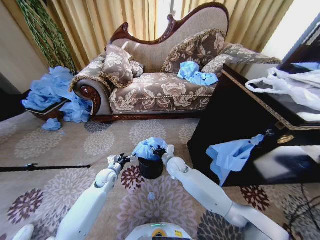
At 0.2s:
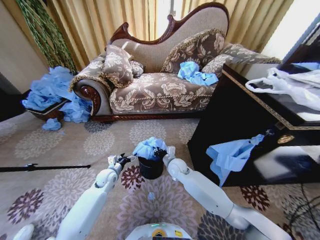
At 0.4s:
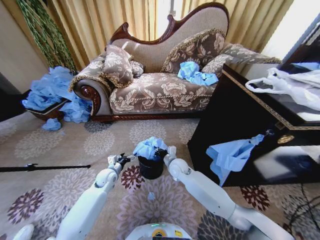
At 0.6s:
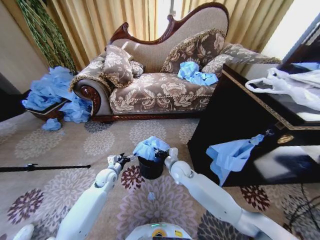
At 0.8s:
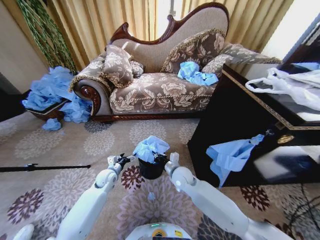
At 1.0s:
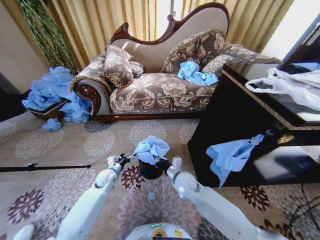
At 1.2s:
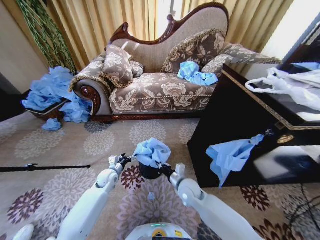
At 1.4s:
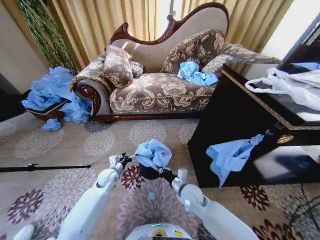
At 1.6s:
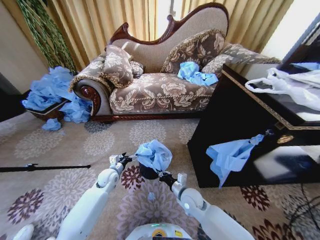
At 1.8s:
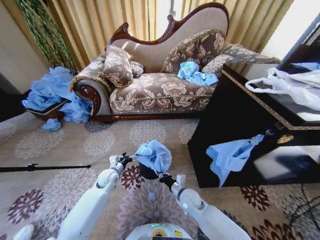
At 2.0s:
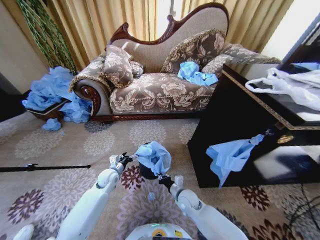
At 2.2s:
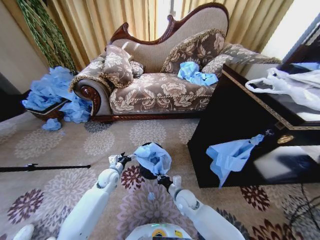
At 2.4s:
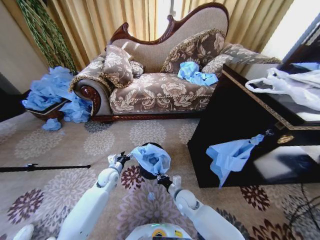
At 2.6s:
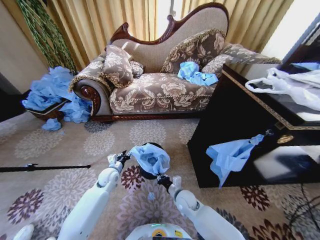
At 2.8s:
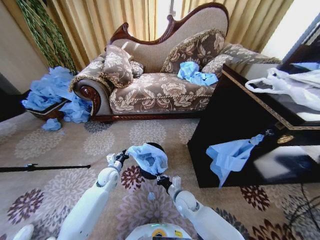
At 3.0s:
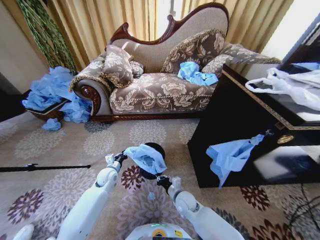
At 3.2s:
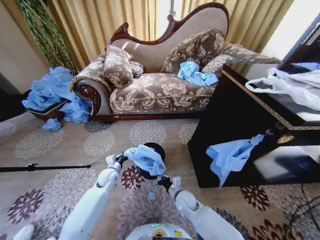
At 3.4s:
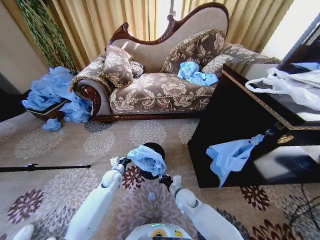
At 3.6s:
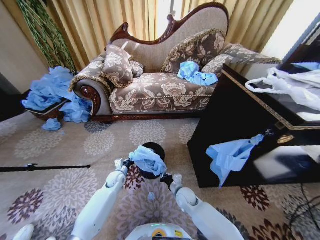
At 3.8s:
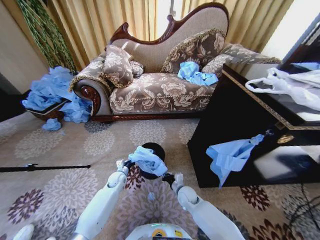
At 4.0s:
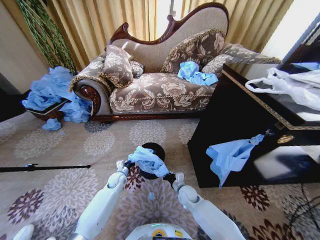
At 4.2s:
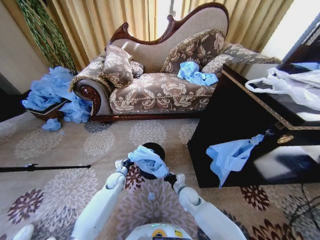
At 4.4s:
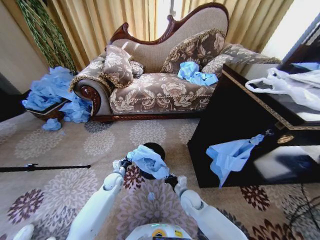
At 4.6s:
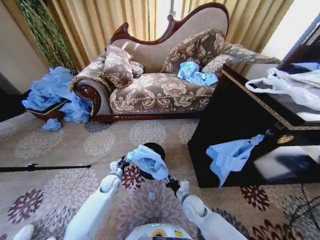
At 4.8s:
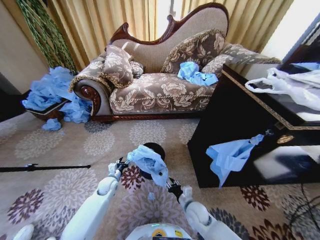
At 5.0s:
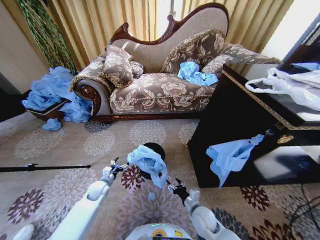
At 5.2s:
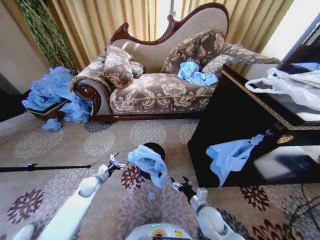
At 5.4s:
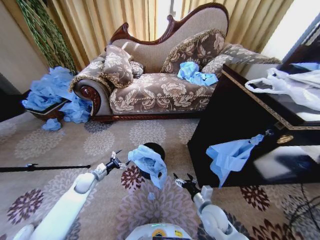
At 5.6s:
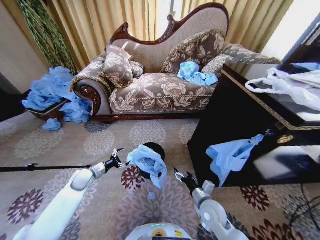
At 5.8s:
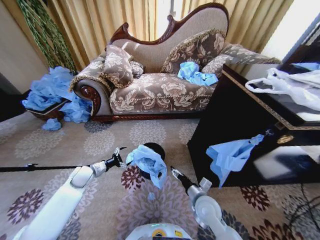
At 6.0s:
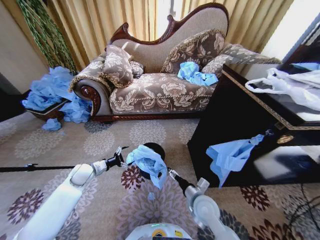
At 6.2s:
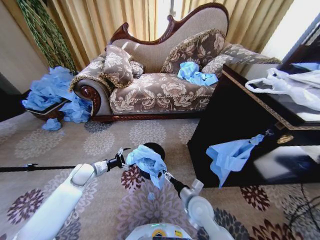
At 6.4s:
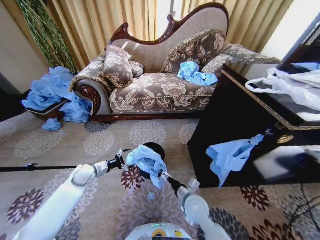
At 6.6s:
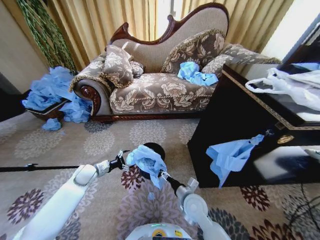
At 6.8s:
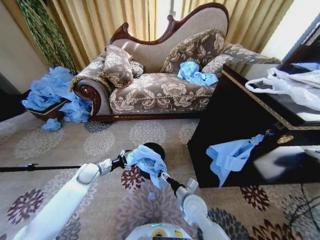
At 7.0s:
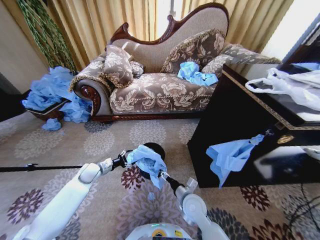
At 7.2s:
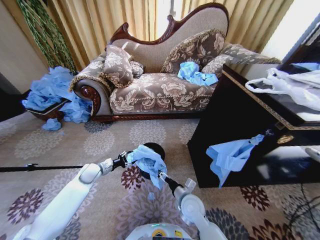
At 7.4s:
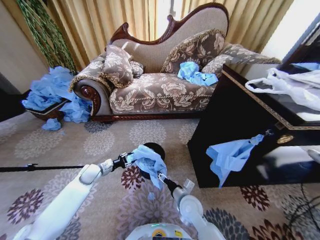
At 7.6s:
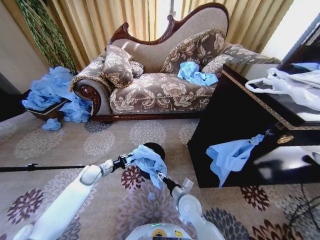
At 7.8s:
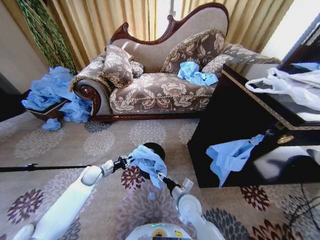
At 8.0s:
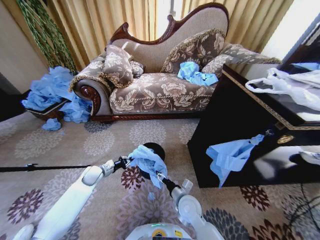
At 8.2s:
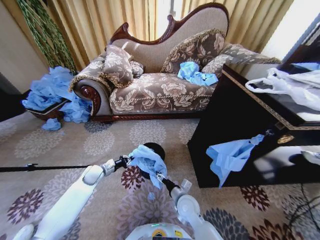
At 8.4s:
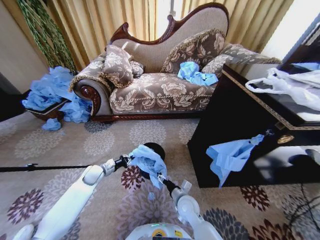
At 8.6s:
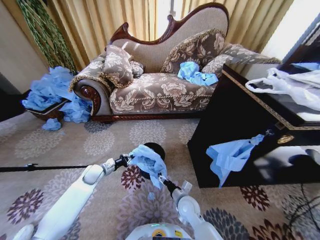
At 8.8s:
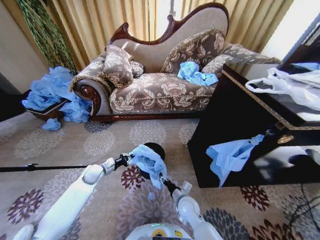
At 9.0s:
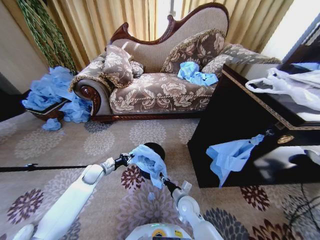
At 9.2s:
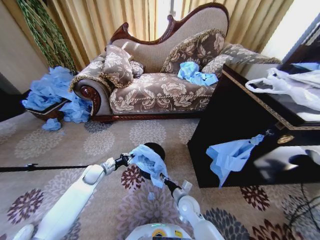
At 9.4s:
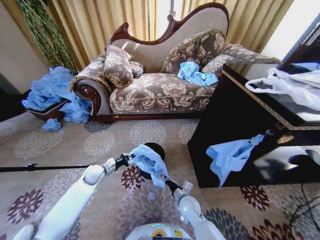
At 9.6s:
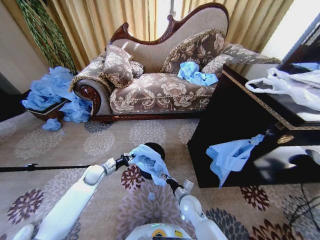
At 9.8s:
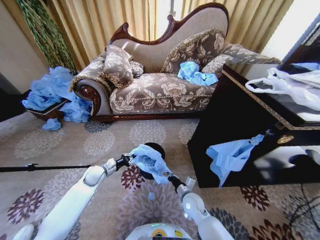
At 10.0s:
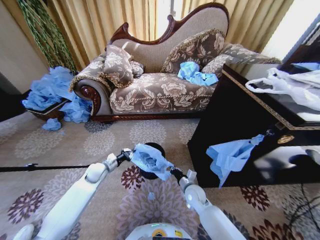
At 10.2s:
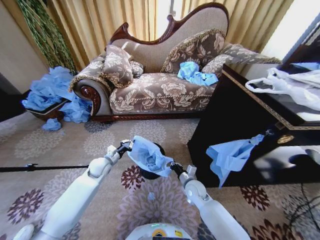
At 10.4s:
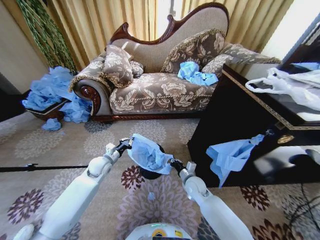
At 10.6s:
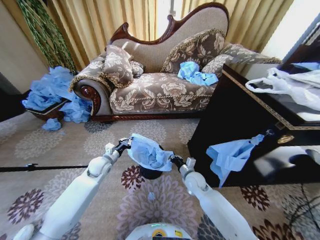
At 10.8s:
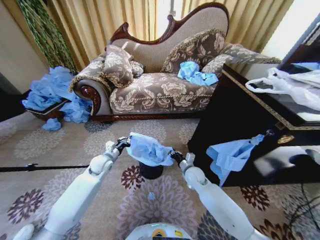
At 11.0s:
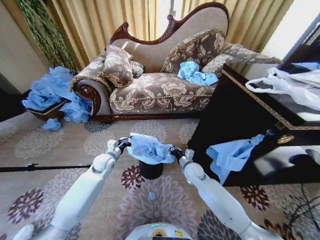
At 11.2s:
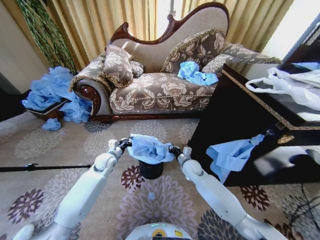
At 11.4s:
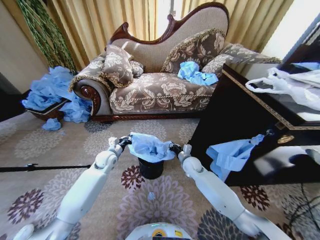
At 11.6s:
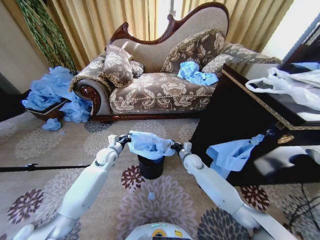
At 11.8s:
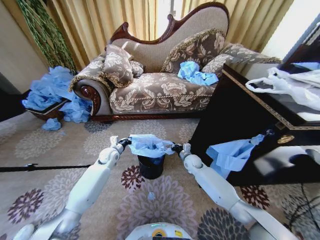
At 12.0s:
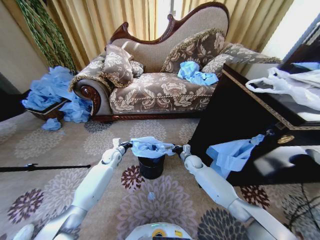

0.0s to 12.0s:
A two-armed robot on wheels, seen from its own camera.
Task of the whole recording: Place a garbage bag over the trash bin.
0.0s to 1.6s: The right gripper heads backward, to the right and downward, covering some 15 cm, and closes up.
1.6s to 3.0s: The left gripper closes.
3.0s to 4.4s: The left gripper is displaced downward by some 5 cm.
4.4s to 6.0s: The right gripper shifts approximately 10 cm upward and backward, and opens its fingers. Meanwhile the left gripper moves to the left and upward, roughly 15 cm, and opens its fingers.
6.0s to 7.6s: The right gripper travels to the left by about 5 cm, while the left gripper closes its fingers.
7.6s to 9.0s: The left gripper closes up. The right gripper heads downward, covering some 5 cm, and closes up.
9.0s to 10.4s: The left gripper is displaced upward and to the right by some 10 cm. The right gripper is displaced forward by approximately 5 cm, and closes.
10.4s to 12.0s: The right gripper is displaced forward by about 15 cm, while the left gripper heads forward, covering approximately 10 cm.

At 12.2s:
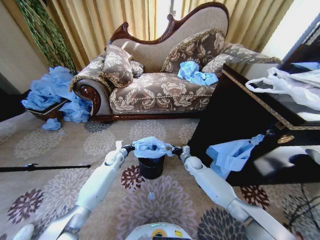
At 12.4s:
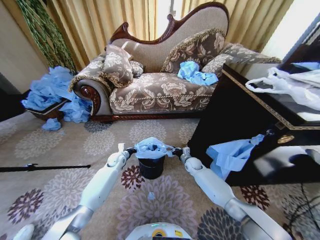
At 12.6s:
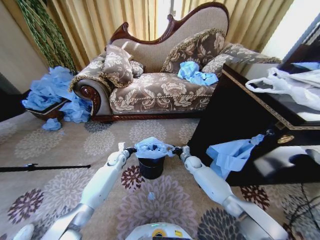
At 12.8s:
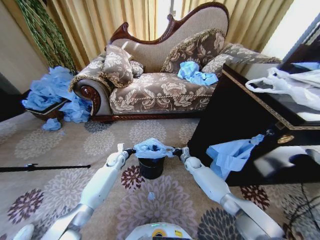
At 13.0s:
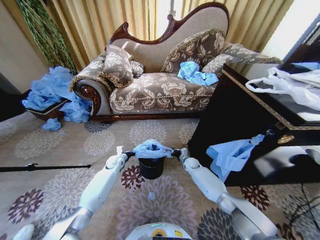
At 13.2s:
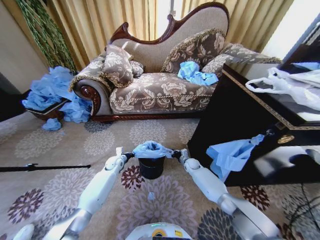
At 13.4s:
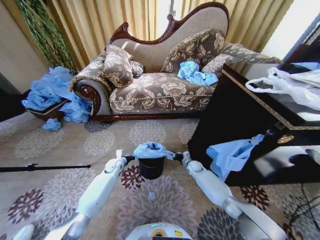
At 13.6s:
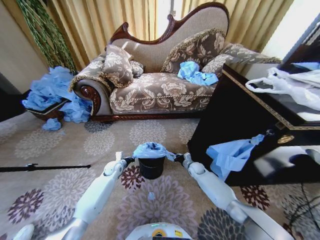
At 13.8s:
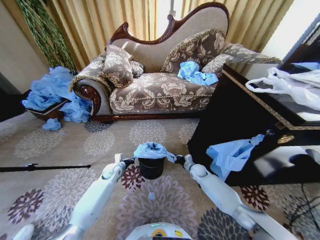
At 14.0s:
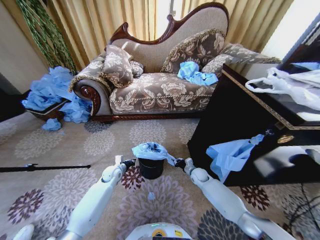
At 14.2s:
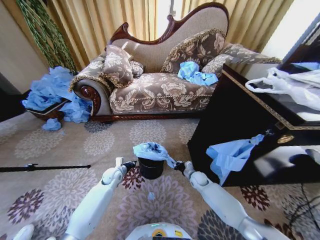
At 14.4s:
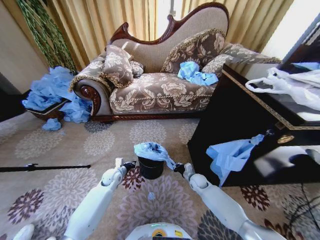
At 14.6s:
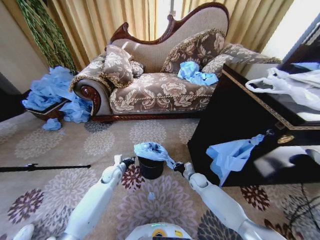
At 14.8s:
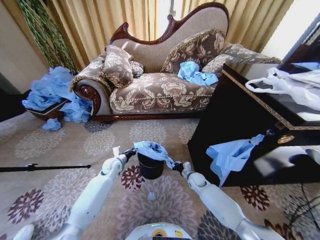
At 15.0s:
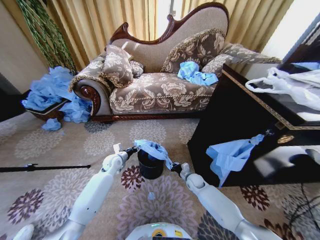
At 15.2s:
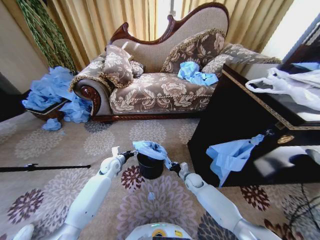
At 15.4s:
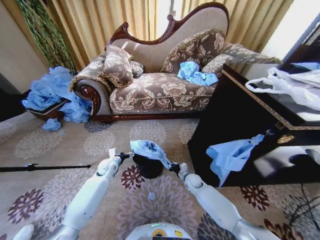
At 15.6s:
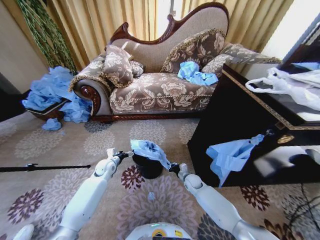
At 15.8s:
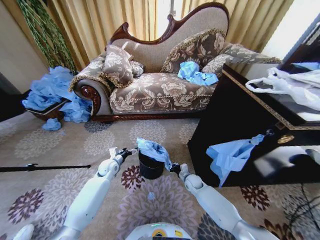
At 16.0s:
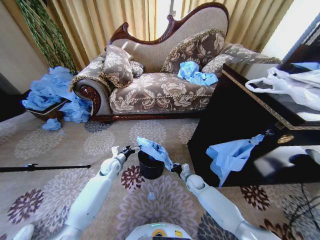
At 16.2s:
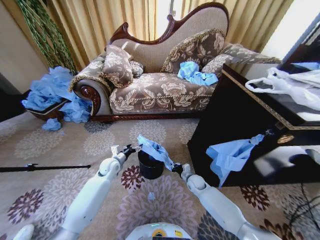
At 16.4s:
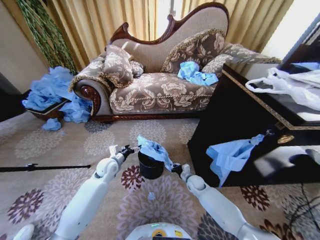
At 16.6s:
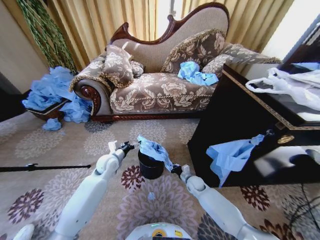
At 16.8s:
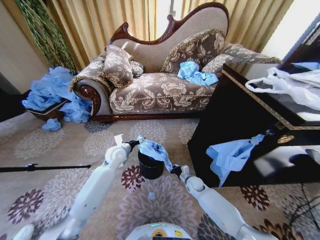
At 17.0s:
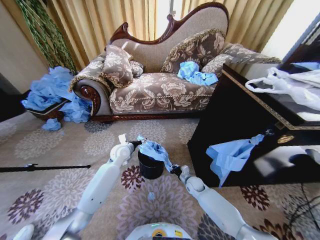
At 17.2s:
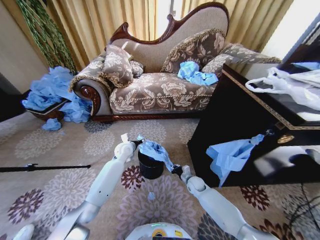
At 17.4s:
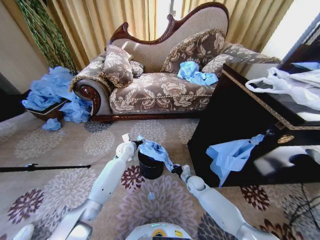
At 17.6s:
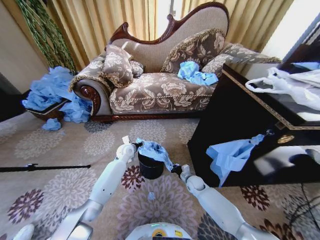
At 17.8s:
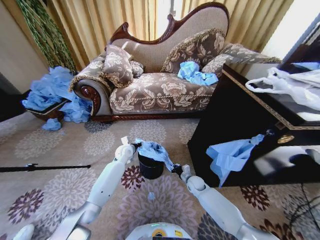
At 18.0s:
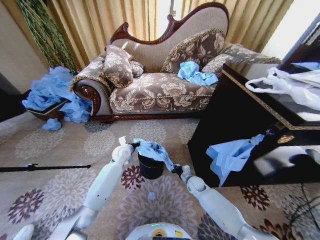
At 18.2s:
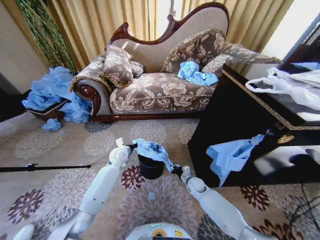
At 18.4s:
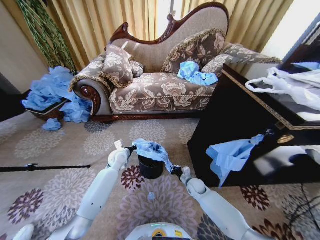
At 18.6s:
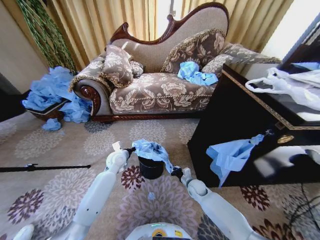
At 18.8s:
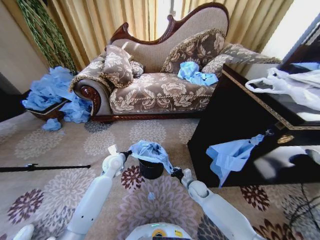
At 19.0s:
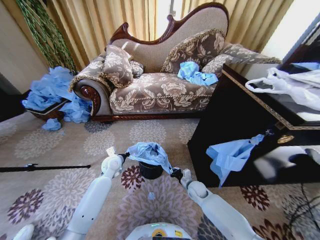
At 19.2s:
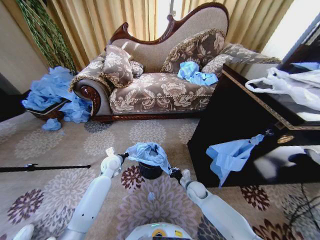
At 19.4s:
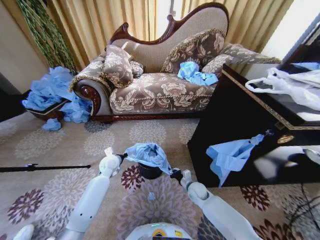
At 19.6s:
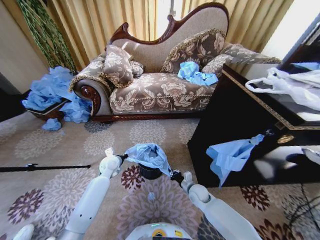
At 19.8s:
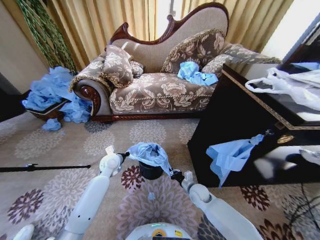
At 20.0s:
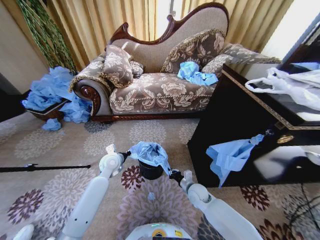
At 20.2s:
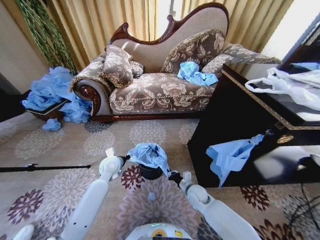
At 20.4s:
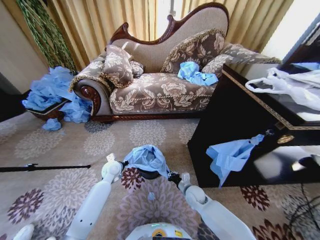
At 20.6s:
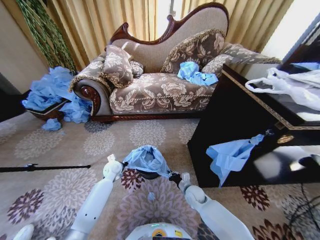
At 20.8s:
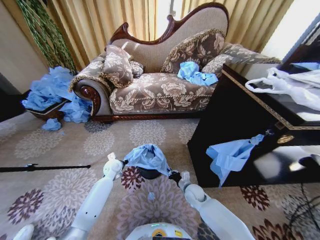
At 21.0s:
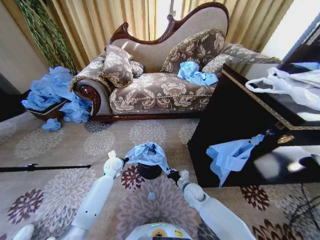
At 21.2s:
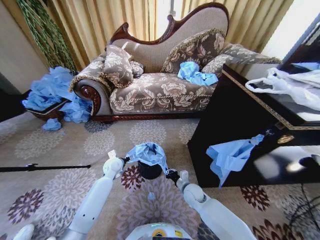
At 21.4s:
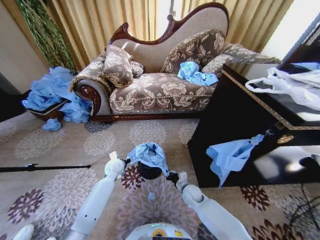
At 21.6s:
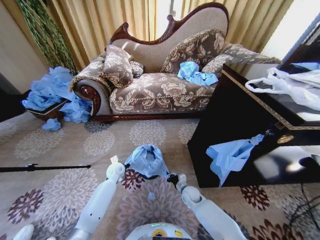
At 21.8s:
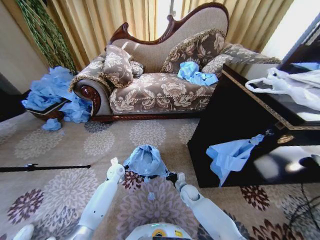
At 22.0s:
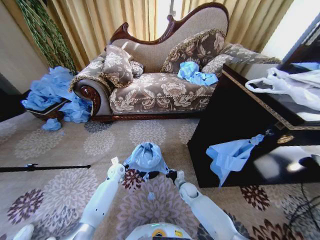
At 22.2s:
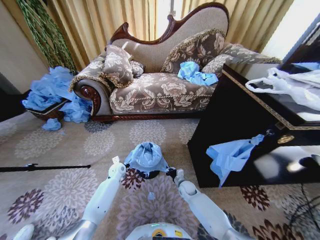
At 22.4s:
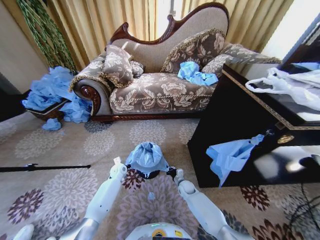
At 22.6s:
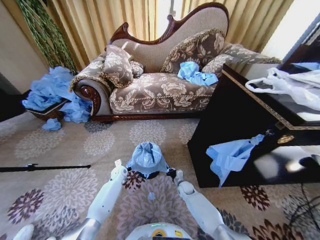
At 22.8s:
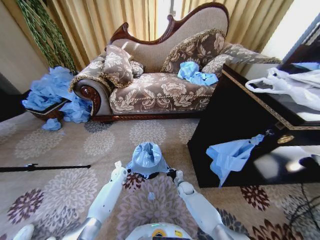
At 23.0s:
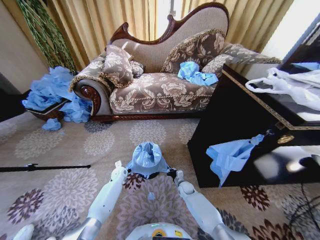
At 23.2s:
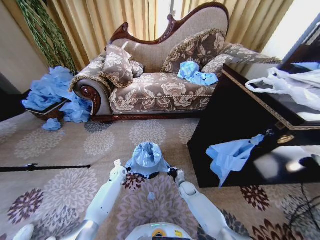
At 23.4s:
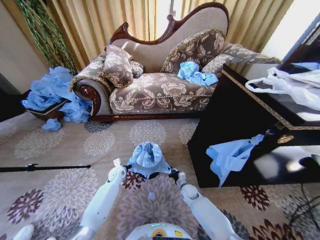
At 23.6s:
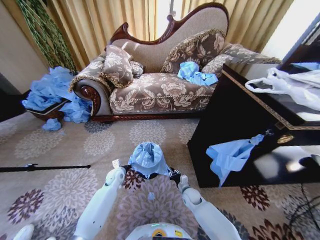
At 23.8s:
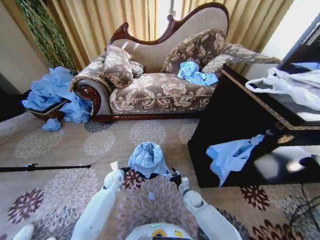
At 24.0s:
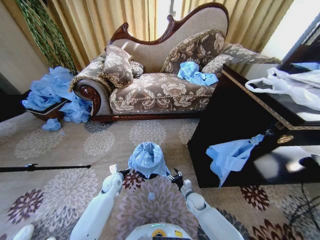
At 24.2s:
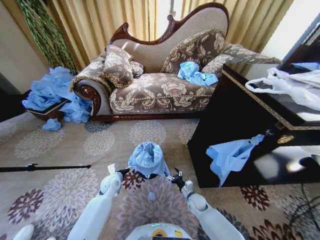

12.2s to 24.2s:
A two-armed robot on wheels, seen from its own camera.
Task of the whole recording: Place a garbage bag over the trash bin.
12.2s to 13.8s: The left gripper moves backward, some 5 cm, while the right gripper moves some 5 cm.
13.8s to 15.2s: The right gripper is displaced backward by about 5 cm. The left gripper moves upward, roughly 5 cm, and opens its fingers.
15.2s to 16.6s: The left gripper goes some 5 cm upward.
16.6s to 18.2s: The left gripper goes approximately 5 cm forward, and closes up.
18.2s to 19.8s: Both grippers travel together backward, roughly 5 cm.
21.2s to 22.6s: The left gripper is displaced downward by some 15 cm. Meanwhile the right gripper moves downward and forward, about 15 cm.
22.6s to 24.2s: The right gripper goes some 10 cm backward, and opens up. The left gripper shifts some 10 cm backward and upward, and opens its fingers.
